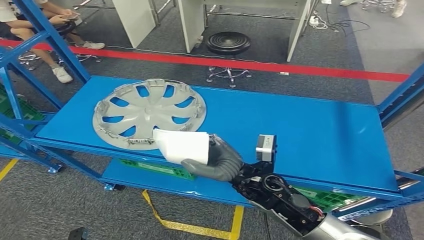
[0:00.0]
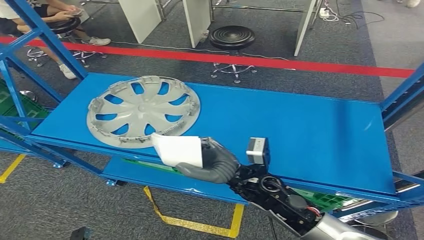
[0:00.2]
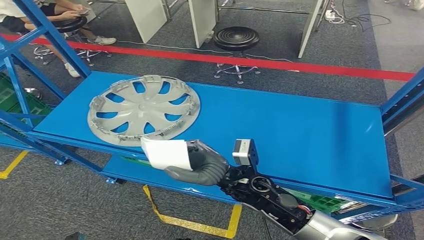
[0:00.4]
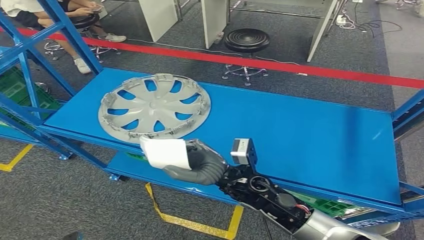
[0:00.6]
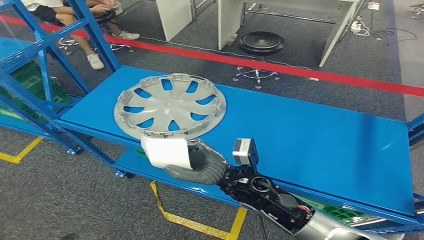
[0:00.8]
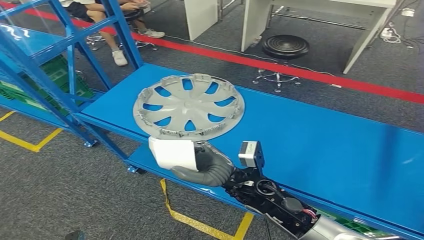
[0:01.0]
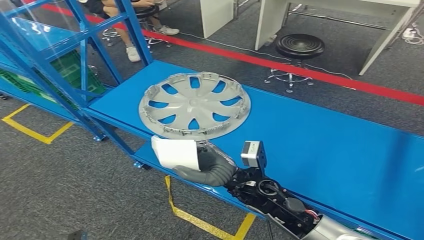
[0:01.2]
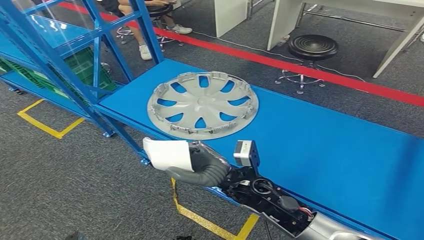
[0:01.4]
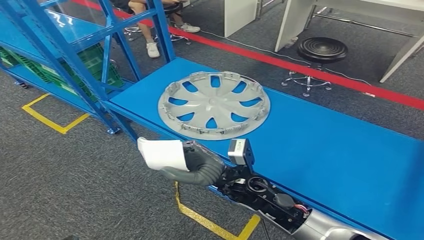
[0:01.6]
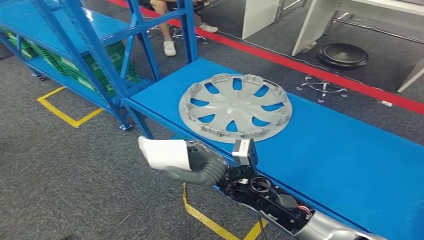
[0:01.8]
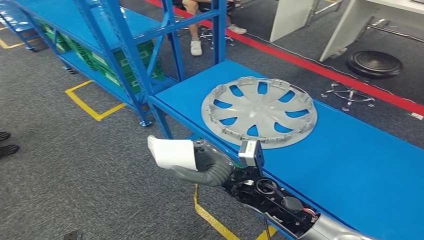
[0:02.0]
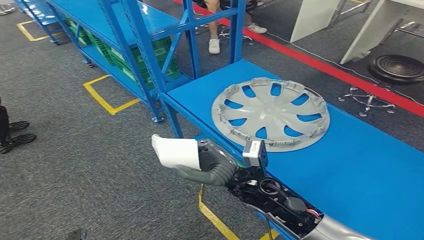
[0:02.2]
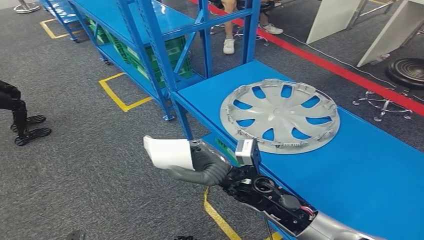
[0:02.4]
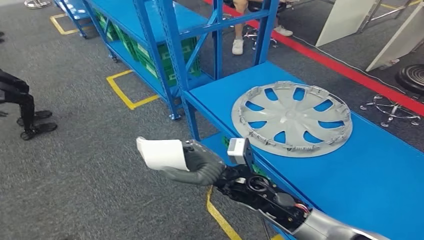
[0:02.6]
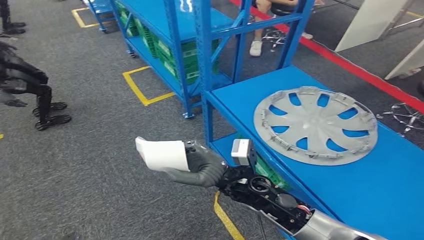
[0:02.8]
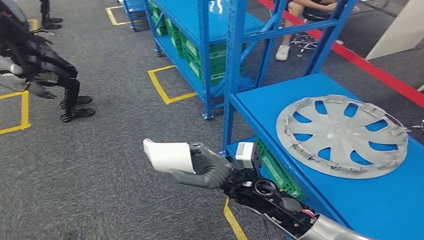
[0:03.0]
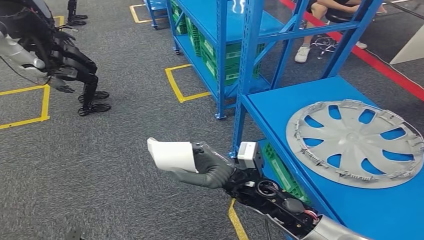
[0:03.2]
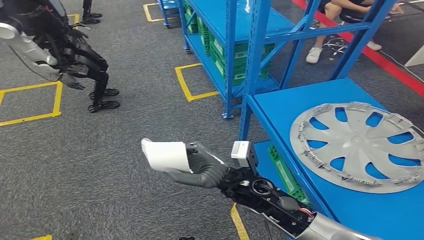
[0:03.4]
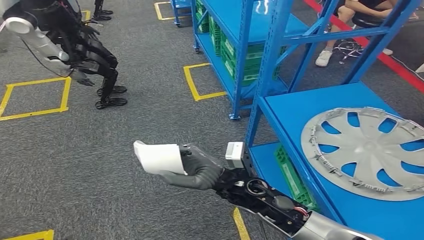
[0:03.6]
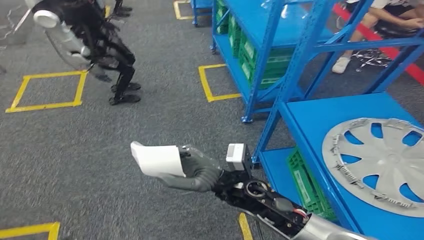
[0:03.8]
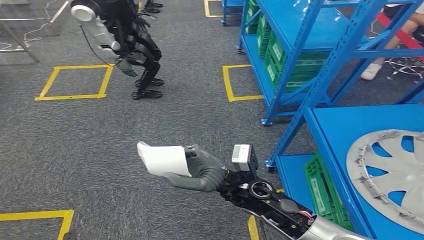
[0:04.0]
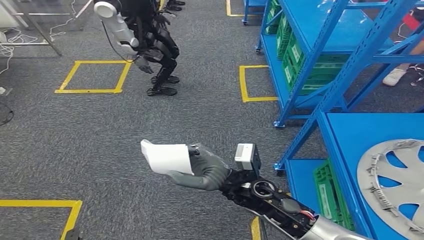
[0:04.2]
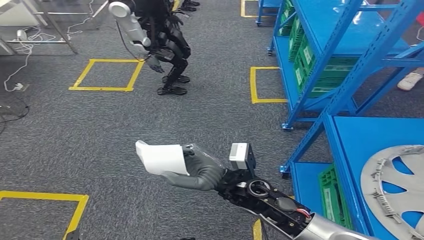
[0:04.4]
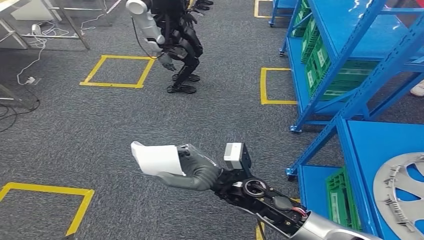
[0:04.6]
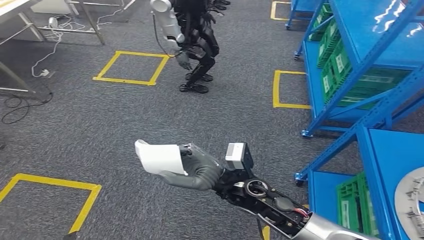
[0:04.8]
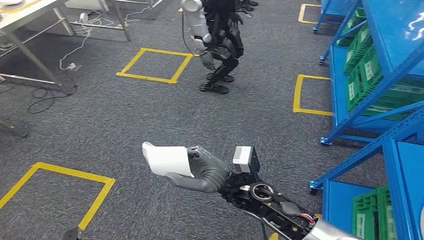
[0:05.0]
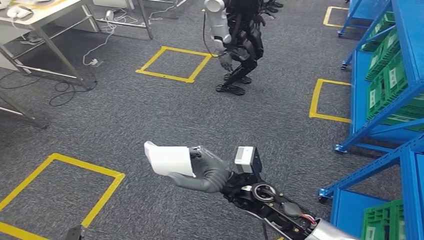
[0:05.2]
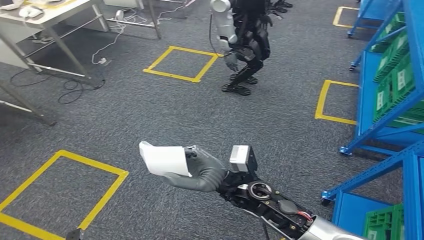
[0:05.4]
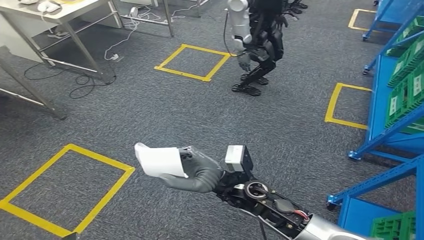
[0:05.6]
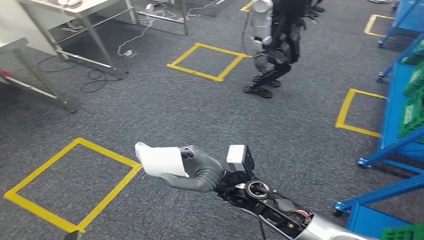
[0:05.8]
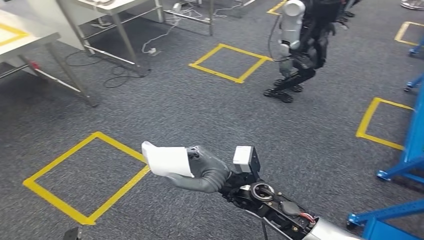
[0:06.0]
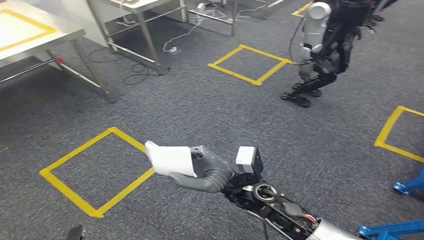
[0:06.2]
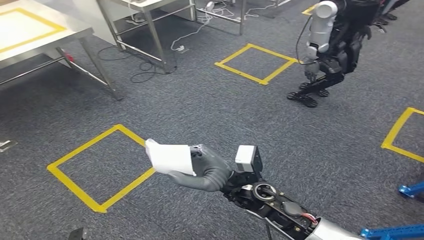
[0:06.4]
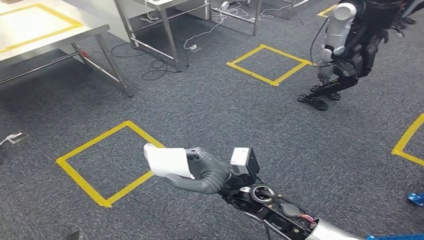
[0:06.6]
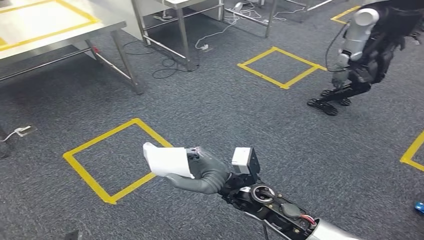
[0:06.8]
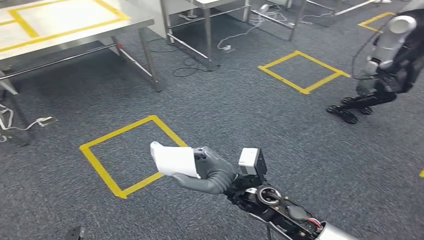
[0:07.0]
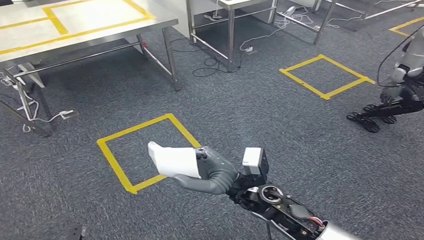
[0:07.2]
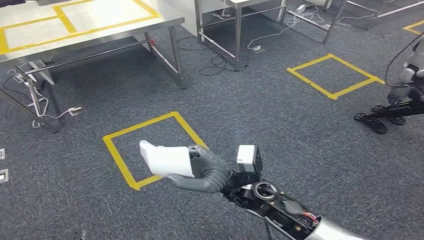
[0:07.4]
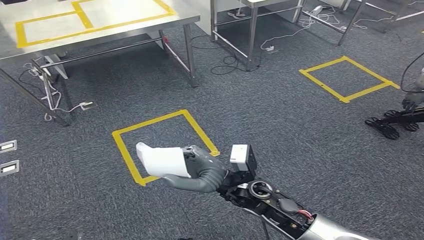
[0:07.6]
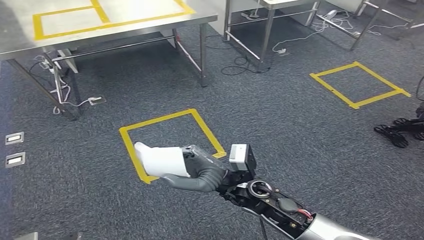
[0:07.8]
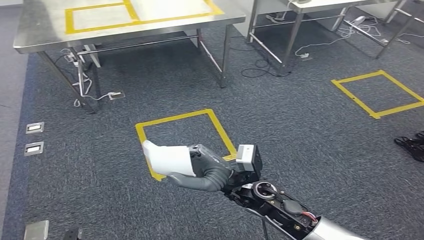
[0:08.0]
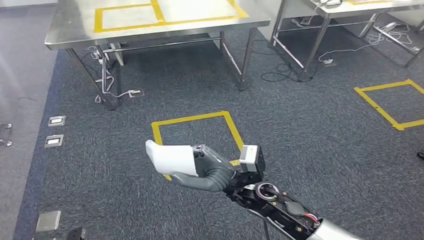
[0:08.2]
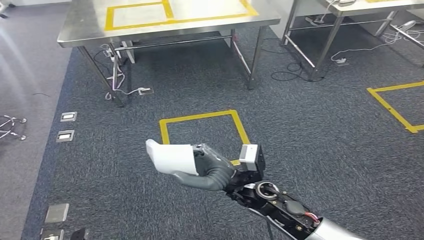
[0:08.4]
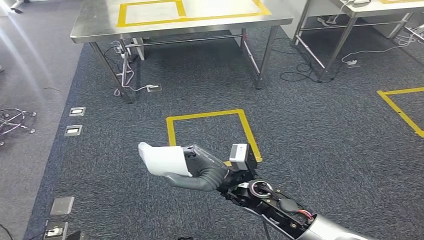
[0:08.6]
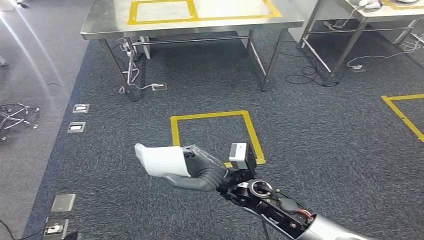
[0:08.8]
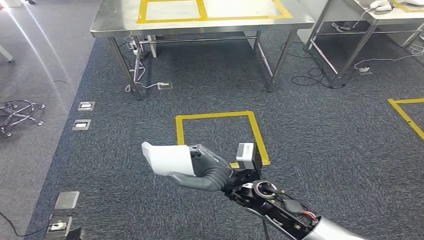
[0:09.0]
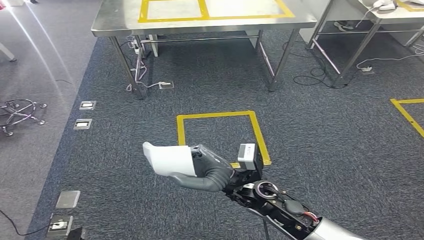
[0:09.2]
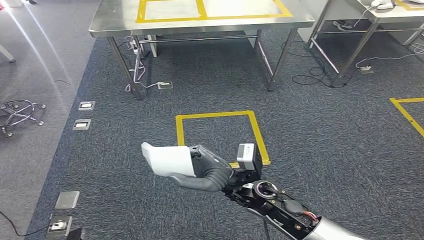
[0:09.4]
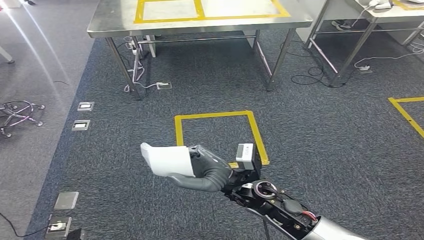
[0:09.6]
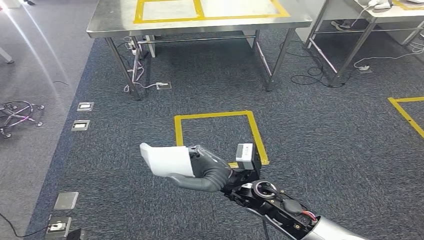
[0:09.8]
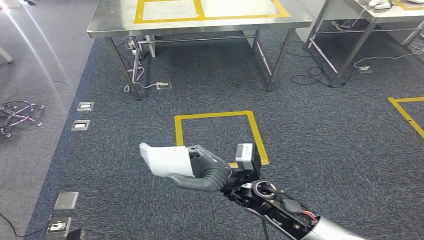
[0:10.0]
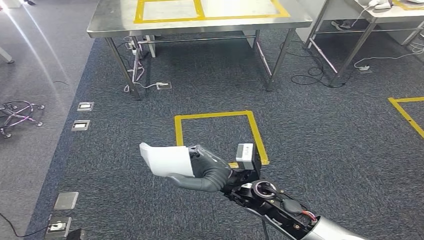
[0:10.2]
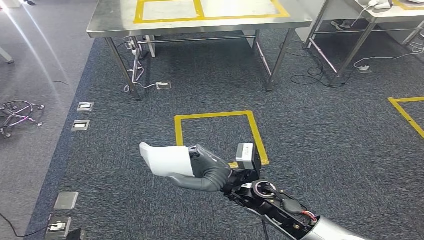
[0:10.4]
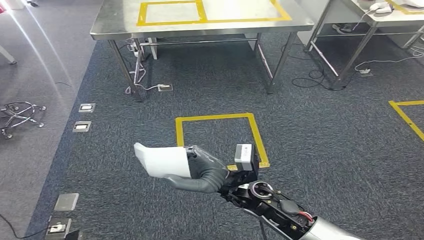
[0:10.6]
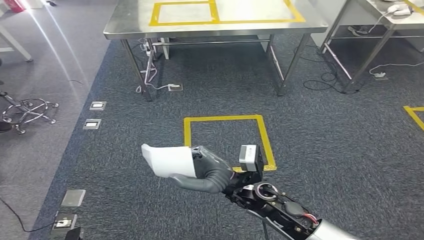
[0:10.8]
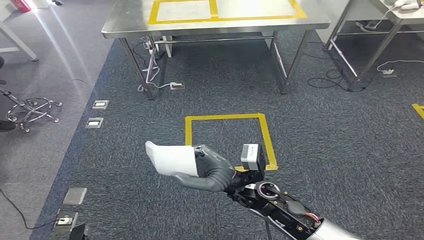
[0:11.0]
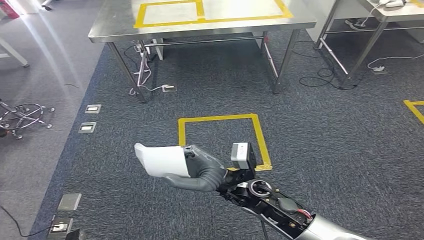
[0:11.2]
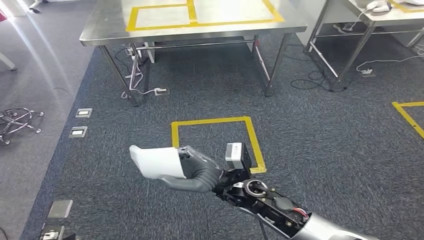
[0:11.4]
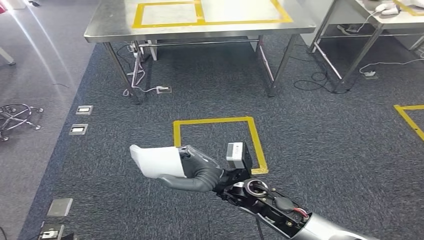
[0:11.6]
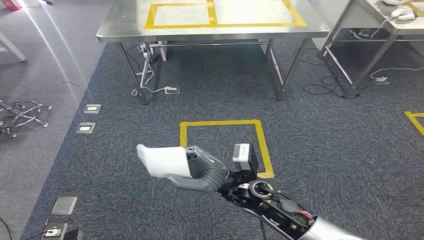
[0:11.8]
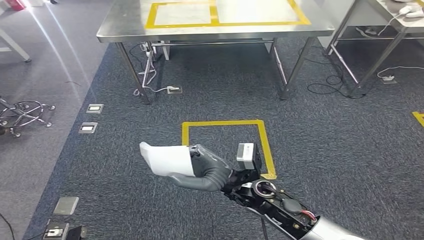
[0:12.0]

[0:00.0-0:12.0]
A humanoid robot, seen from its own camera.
0:09.0 to 0:10.4: Both hands stay put.

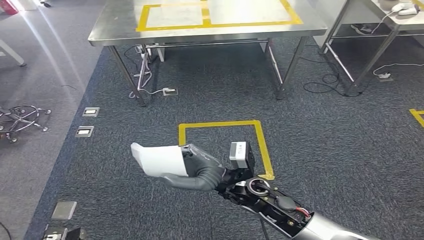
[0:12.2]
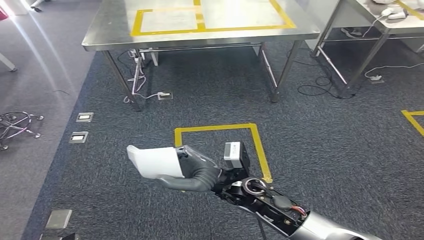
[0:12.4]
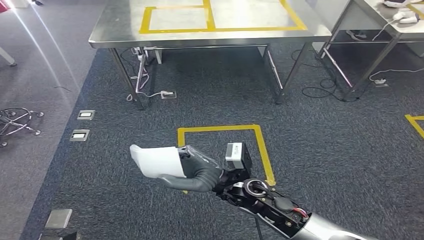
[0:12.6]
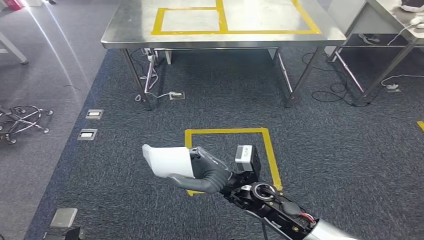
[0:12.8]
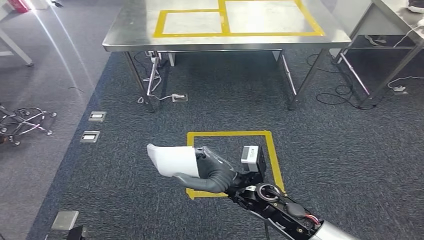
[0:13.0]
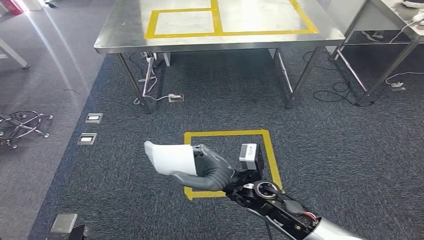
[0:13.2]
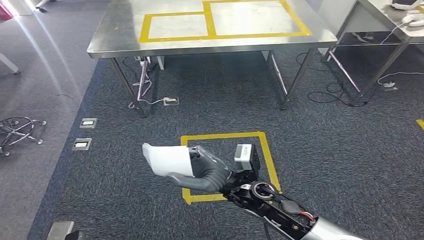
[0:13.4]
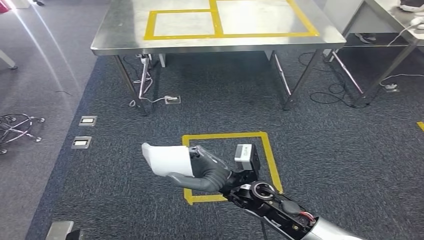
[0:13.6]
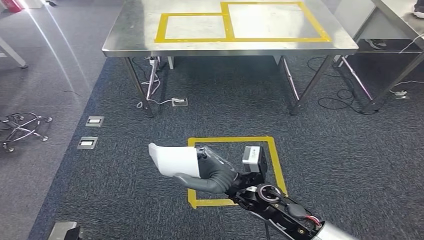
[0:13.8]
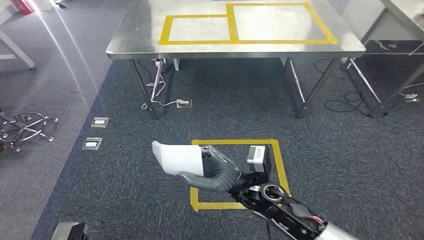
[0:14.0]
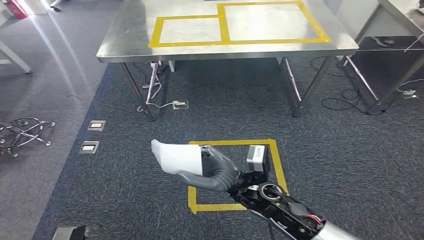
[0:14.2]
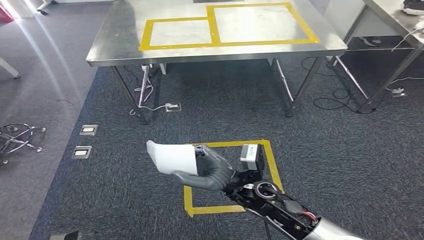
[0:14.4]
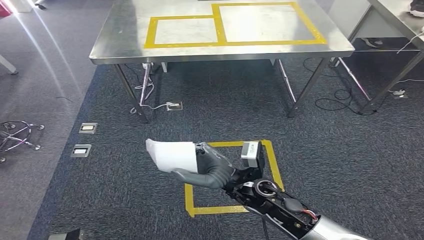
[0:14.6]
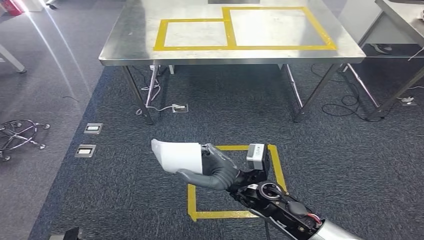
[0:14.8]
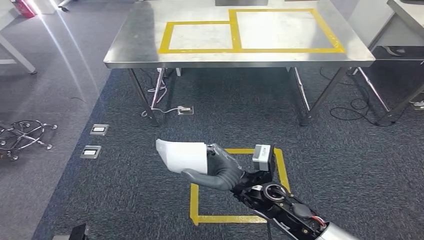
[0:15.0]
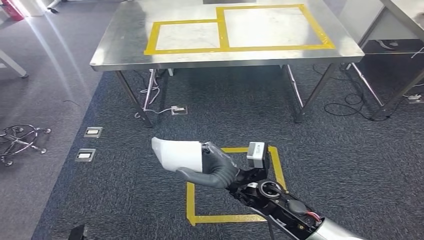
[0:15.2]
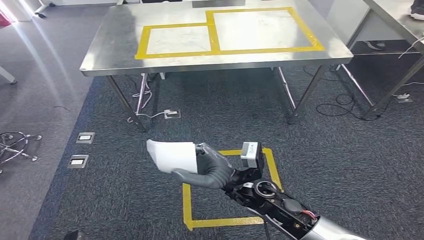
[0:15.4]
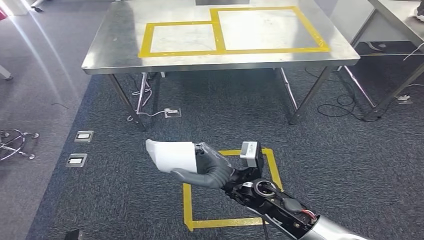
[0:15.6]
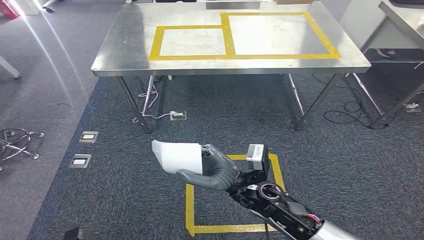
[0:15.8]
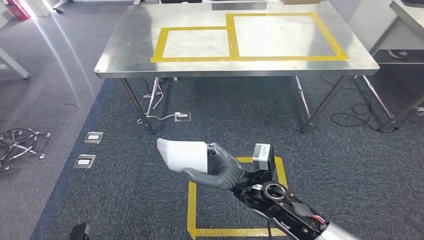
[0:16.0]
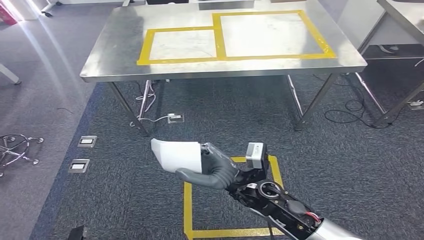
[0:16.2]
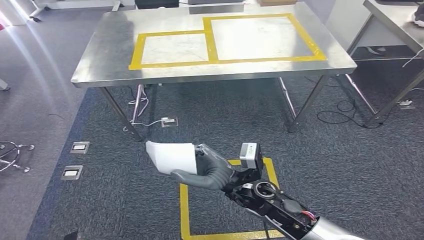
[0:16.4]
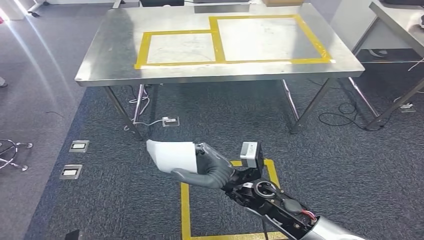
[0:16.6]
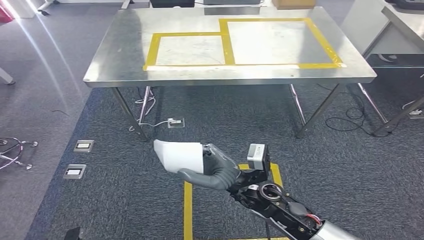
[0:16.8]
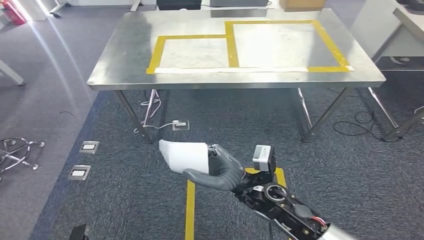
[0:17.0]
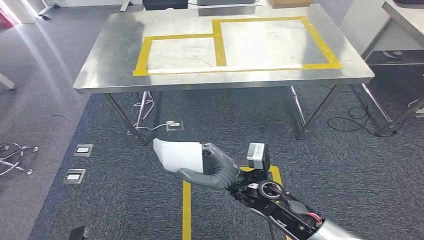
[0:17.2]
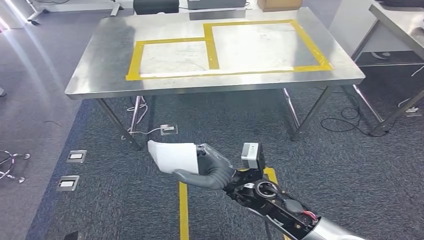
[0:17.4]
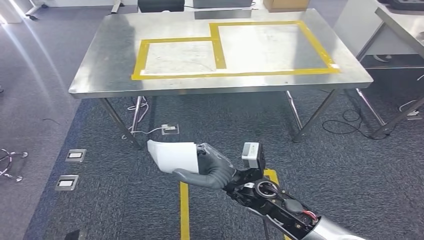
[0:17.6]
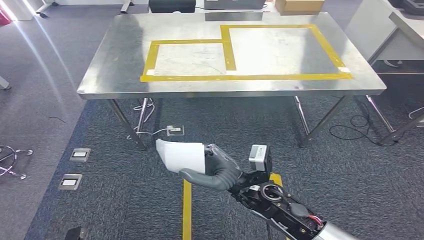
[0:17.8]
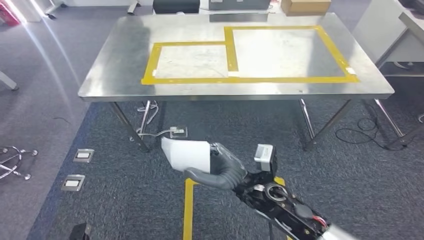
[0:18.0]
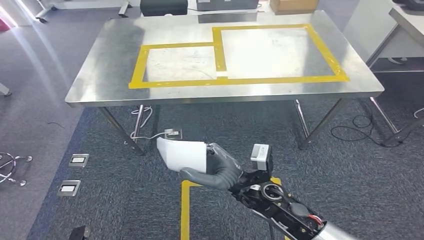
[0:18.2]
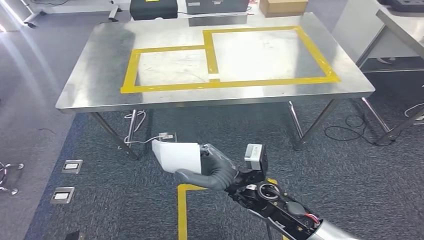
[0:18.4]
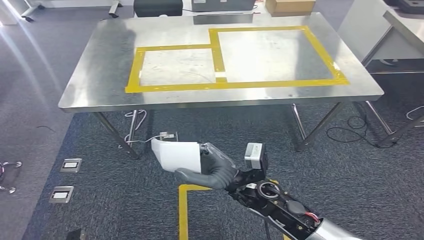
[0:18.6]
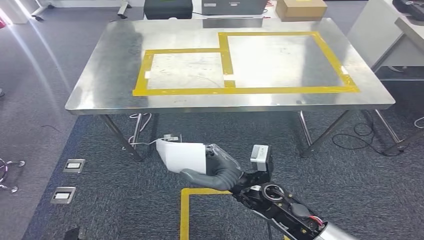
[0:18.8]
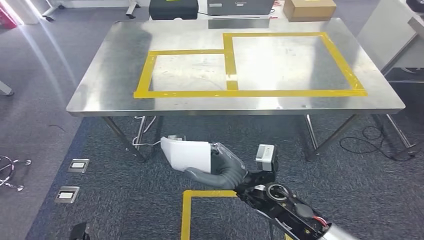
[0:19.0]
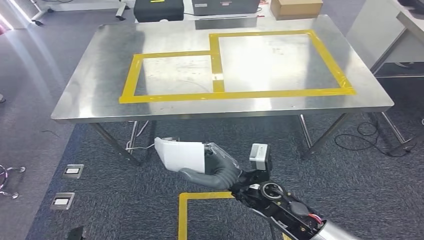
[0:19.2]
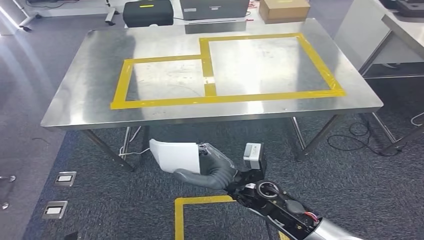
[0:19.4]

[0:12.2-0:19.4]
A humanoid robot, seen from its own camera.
Step, 0:12.2 to 0:17.8: Move the small parts to the workbench.
